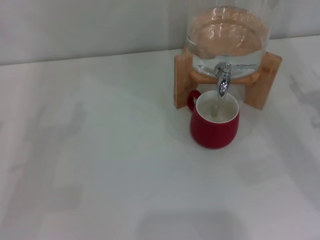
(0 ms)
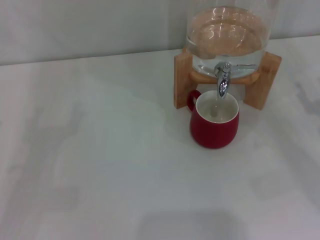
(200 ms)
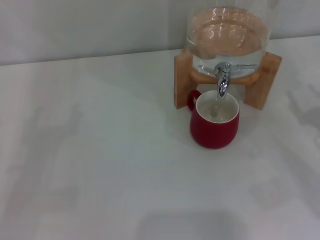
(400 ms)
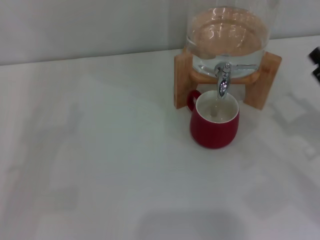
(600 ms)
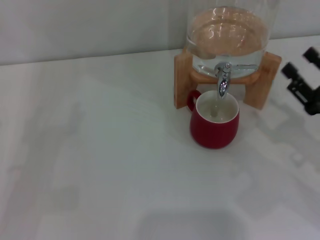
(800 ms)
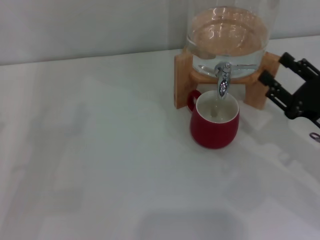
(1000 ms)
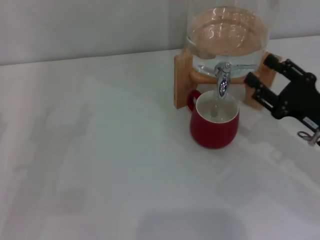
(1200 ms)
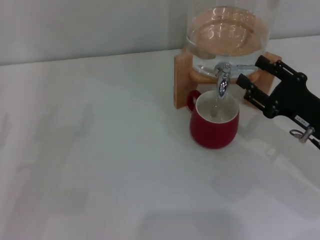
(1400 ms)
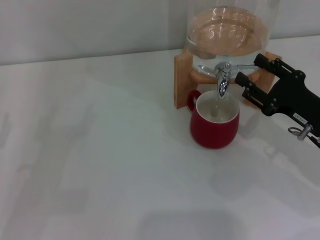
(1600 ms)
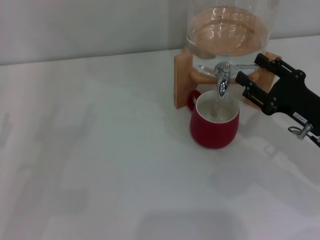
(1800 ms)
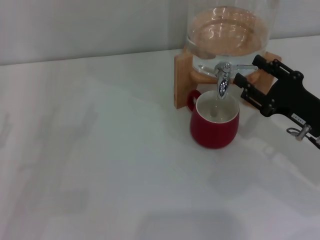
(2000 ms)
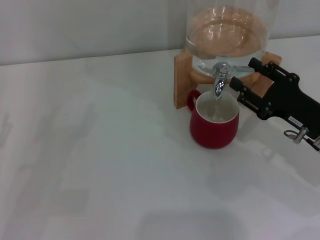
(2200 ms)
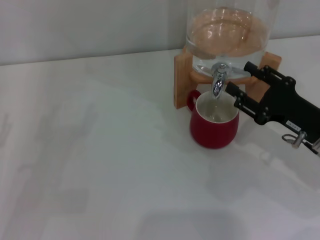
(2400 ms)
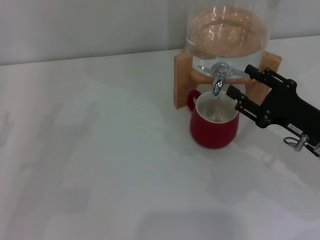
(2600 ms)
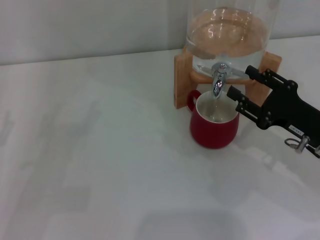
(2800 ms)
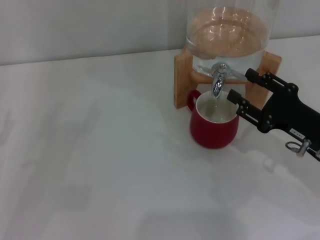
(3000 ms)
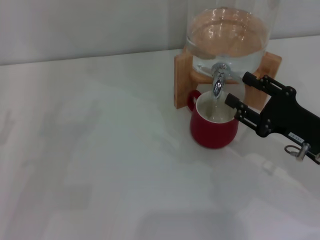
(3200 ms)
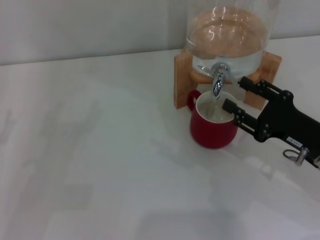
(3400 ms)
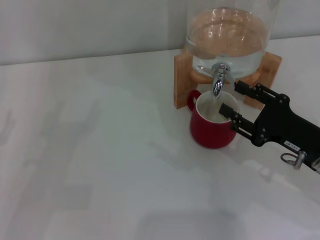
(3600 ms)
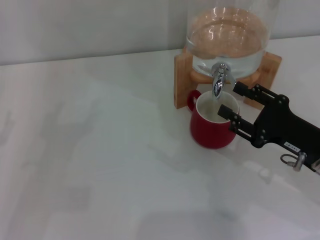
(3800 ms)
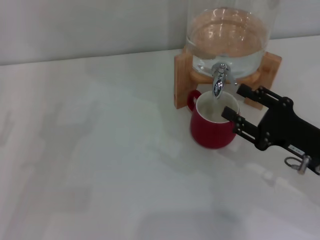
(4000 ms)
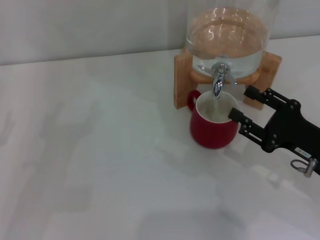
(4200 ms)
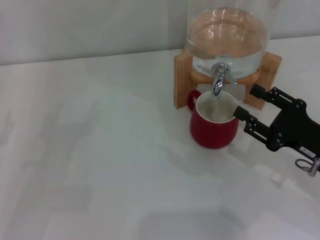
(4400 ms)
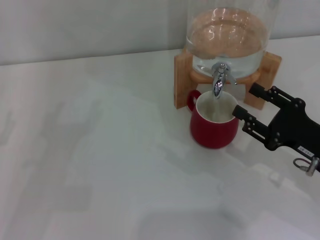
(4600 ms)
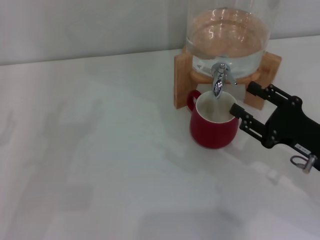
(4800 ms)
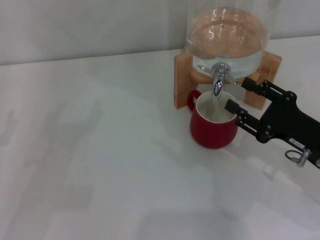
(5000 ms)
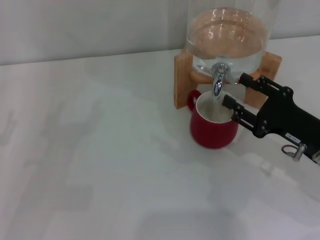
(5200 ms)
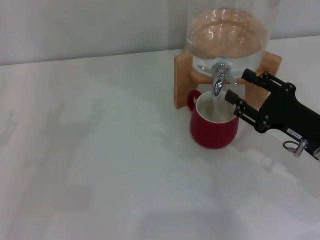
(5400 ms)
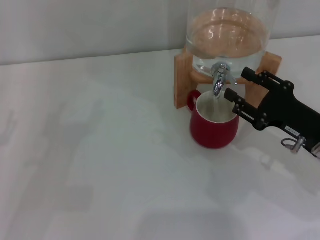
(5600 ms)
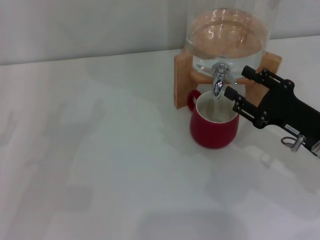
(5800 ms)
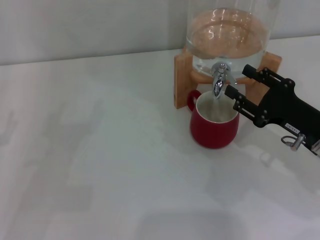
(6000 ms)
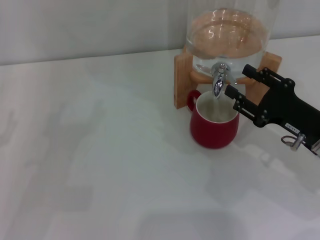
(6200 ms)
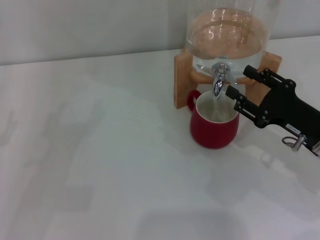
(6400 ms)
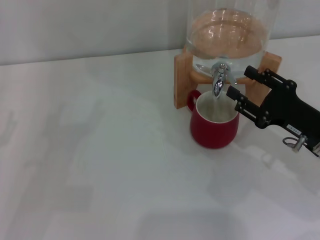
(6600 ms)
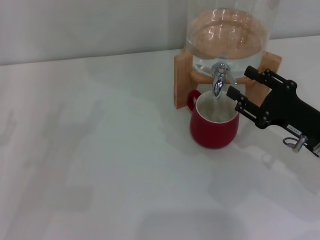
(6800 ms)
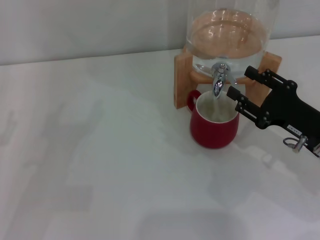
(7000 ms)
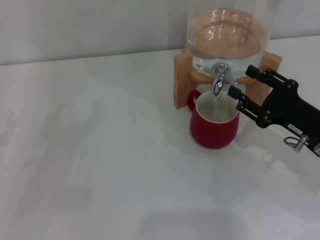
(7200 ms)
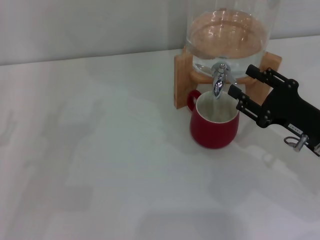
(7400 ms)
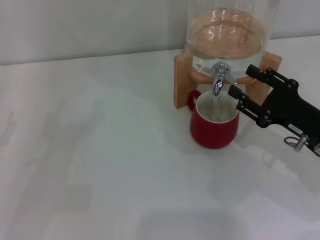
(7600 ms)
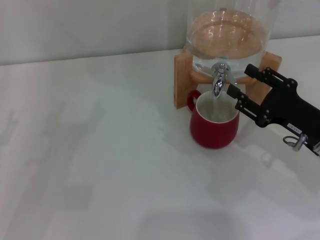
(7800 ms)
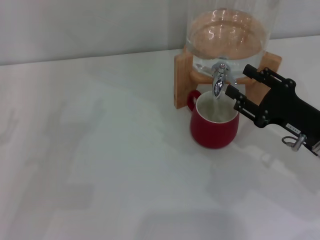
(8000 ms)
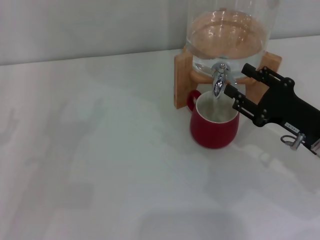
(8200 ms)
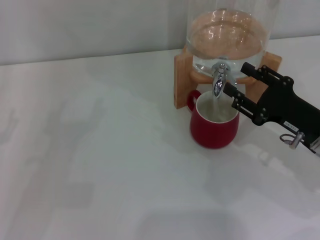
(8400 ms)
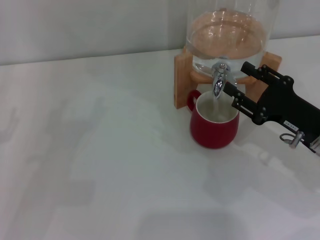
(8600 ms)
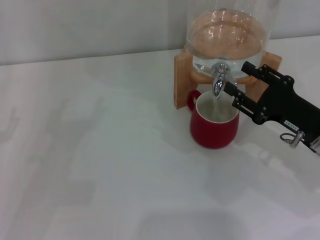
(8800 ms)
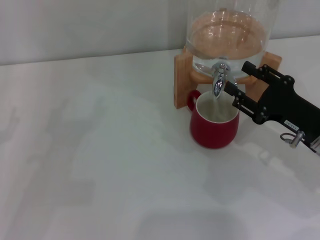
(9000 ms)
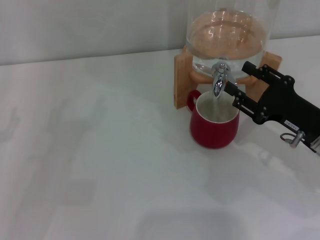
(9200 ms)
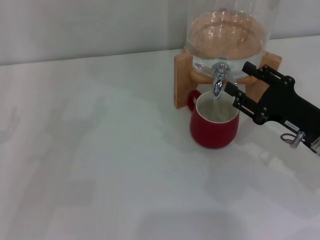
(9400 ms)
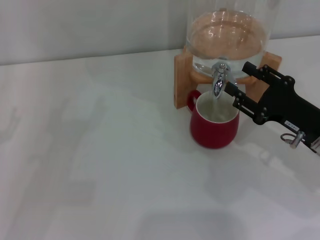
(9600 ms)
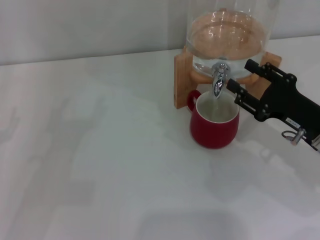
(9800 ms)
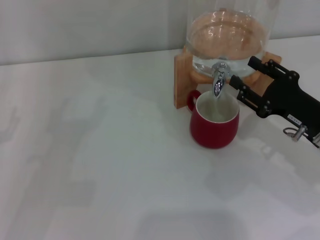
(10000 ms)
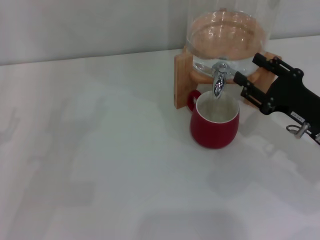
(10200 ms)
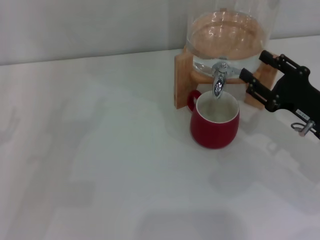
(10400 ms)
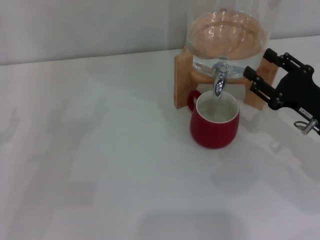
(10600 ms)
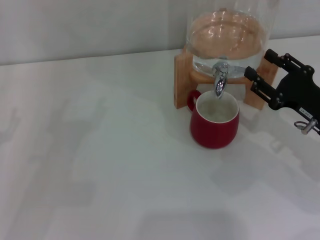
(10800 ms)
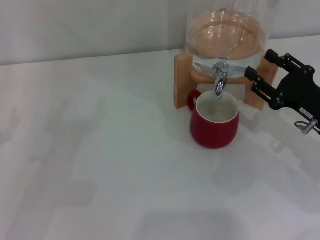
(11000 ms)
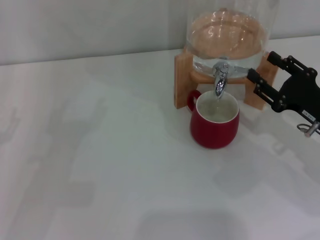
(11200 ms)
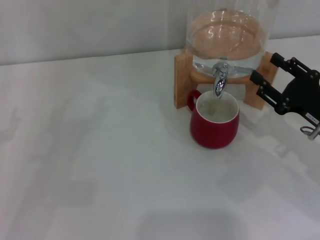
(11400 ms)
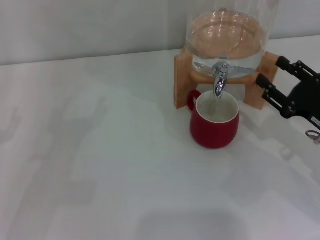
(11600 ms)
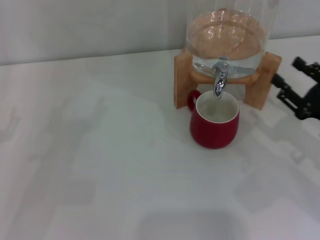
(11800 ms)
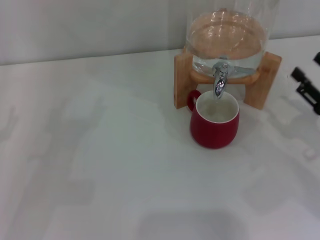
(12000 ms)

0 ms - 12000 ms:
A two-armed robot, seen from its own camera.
Task of the whole recording: the left gripper pick up the red cup and place it horizontally under the faucet, the right gripper turn on the faucet to fill the cup, and then turn off the faucet.
Step, 0 ms - 5200 ms: Open the dispenser valve and fill the cup with water with the right gripper.
Step, 5400 ms - 11400 ms: Close the dispenser valve with the right gripper.
0 ms - 1600 ms: The right gripper heads to the left, covering approximately 5 cm.
1600 ms - 6000 ms: There are only small adjustments of the grippers.
6000 ms - 9000 ms: Both grippers stay put.
9000 ms - 10400 ms: The grippers make only small movements.
10400 ms - 12000 ms: The right gripper shifts by roughly 5 cm.

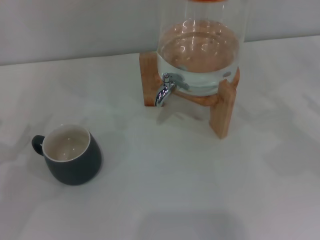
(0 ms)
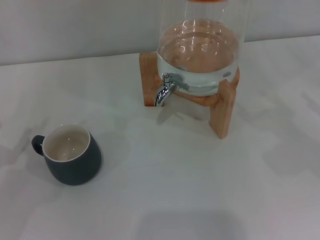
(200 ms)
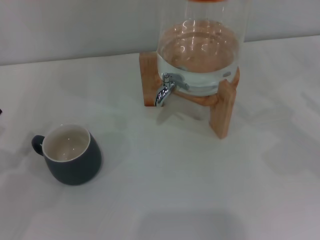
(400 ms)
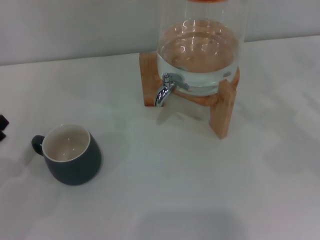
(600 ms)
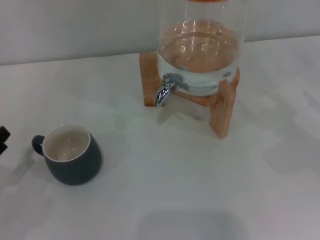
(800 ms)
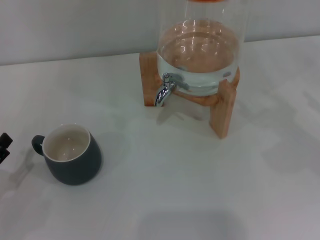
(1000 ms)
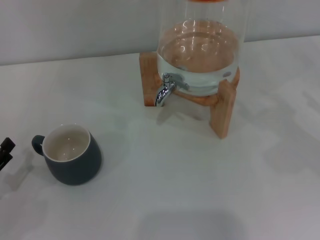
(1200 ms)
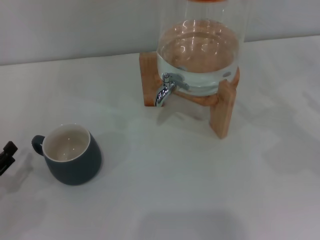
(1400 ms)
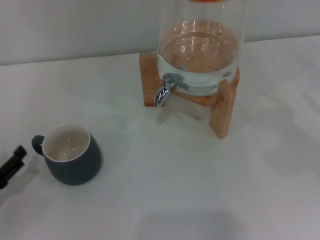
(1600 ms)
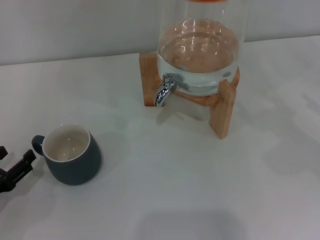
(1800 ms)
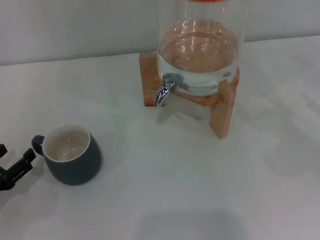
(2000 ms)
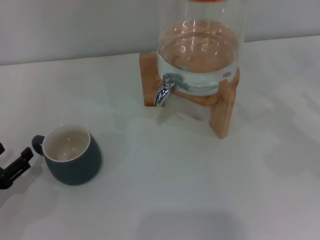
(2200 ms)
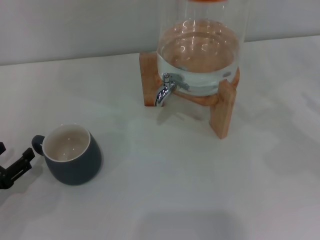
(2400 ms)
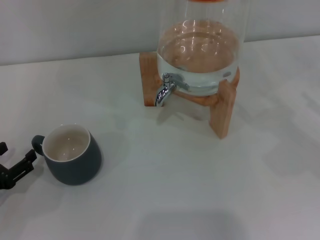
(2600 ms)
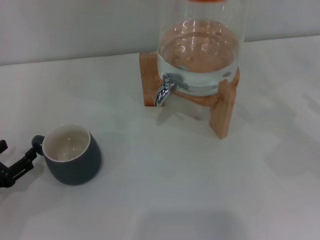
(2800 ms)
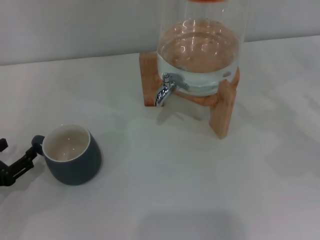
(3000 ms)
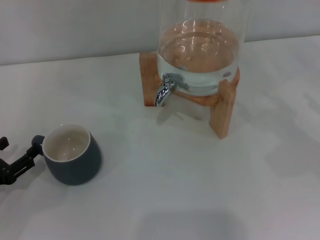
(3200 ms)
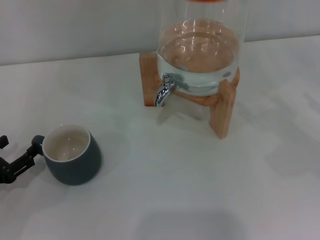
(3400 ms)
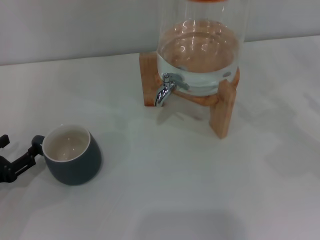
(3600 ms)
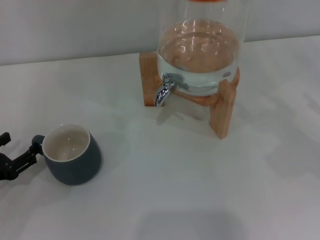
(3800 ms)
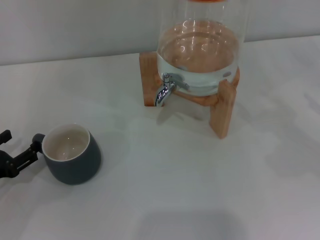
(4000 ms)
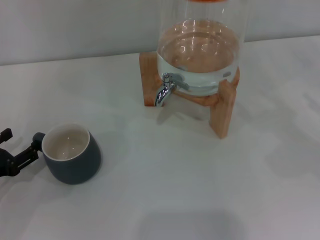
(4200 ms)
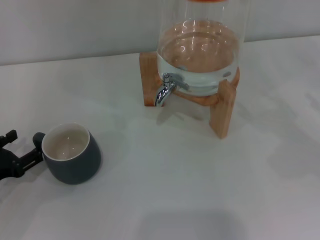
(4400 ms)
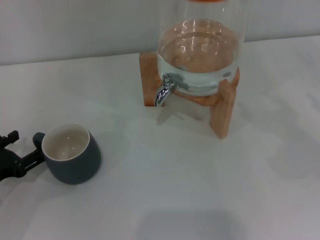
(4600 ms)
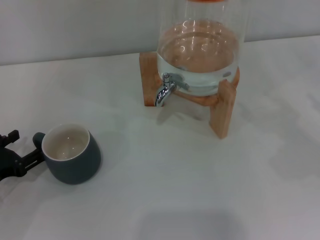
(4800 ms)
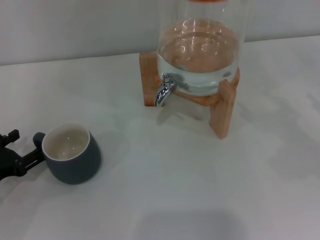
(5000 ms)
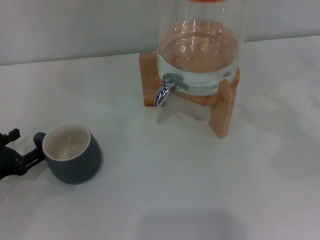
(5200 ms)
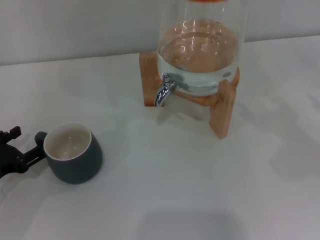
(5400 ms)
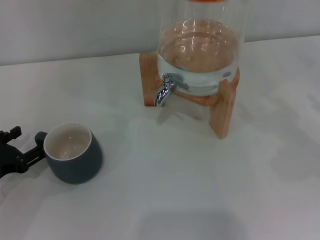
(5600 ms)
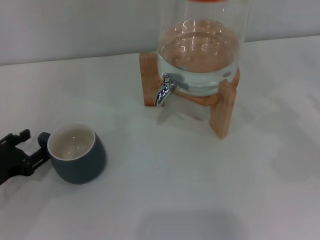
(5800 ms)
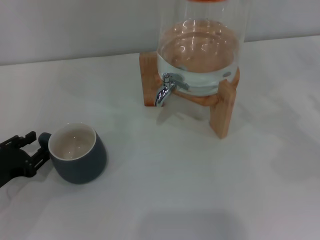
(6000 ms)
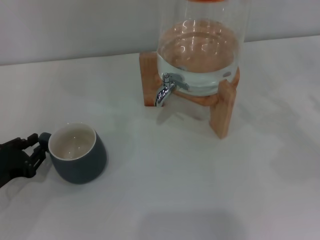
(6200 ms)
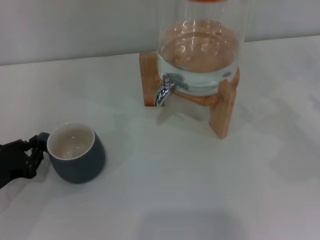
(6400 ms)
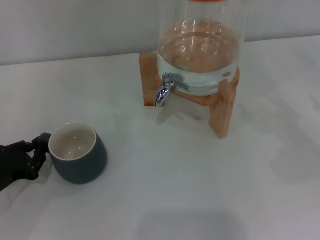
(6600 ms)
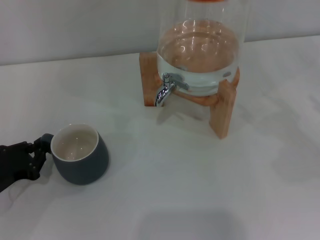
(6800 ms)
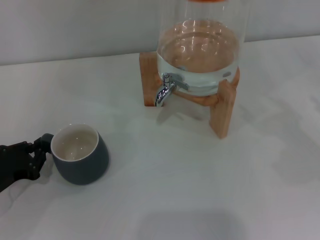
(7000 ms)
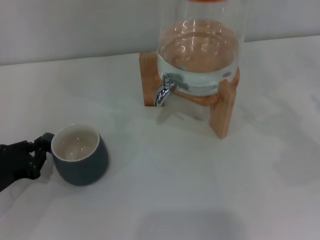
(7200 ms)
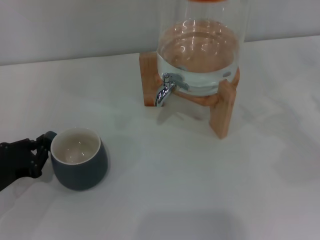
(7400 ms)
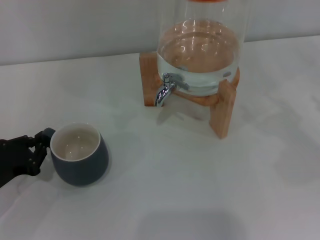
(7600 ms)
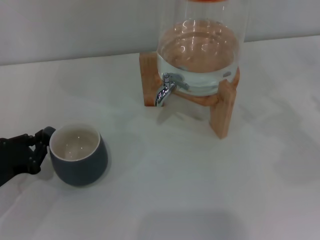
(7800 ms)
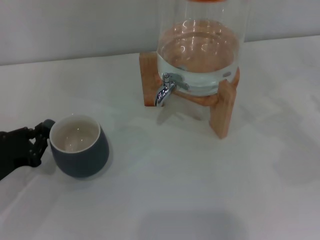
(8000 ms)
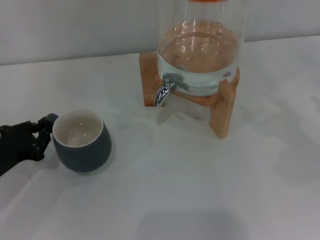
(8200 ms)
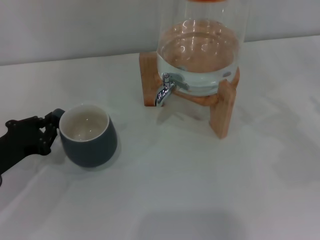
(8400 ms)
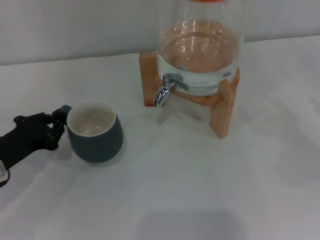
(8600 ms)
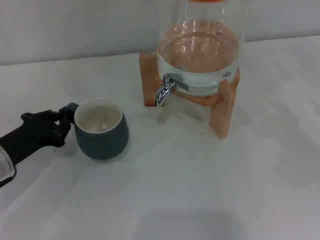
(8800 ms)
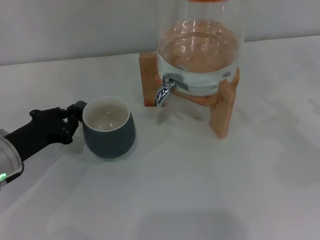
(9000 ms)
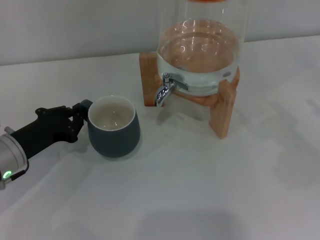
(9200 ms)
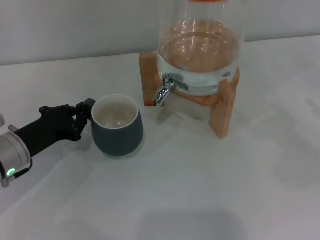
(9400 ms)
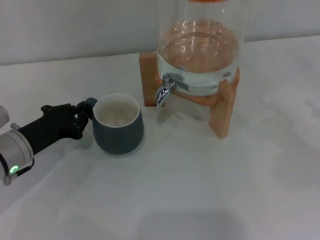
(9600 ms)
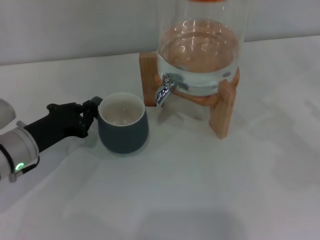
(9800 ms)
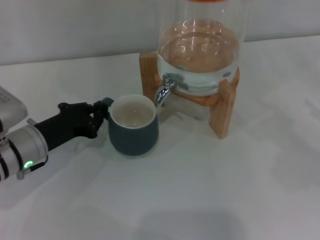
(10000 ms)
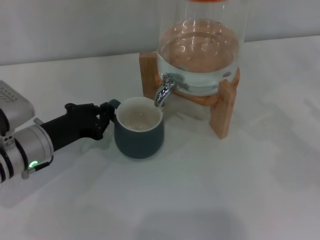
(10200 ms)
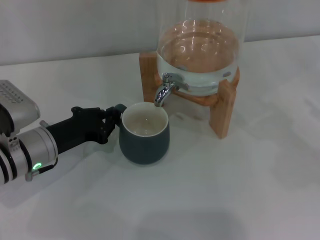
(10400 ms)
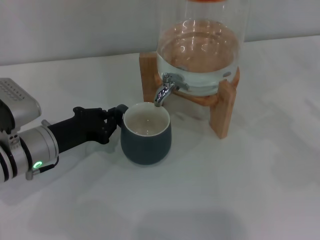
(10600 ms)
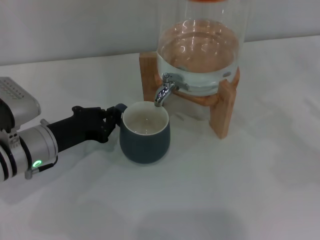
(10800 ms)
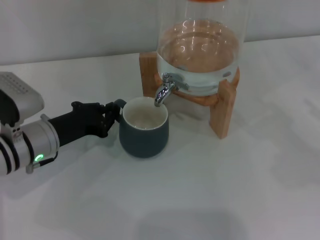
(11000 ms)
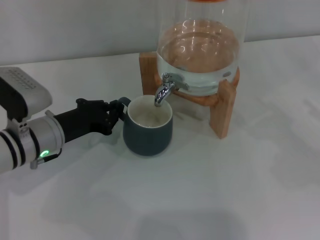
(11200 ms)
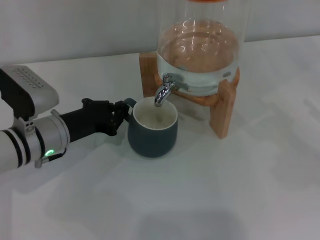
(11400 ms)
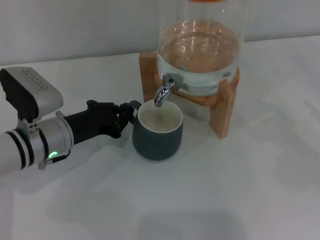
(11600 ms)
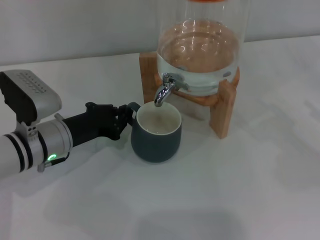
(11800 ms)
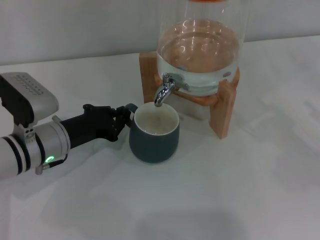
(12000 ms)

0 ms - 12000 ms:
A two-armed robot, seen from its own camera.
Task of the whole recording: the left gripper pick up the black cup and place it horizontally under the faucet, the right gripper turn on the faucet to fill the cup, and then turn off the faucet.
0 ms - 1600 ms: The left gripper shifts roughly 5 cm downward.
1600 ms - 4400 ms: There are only small adjustments of the grippers.
4400 ms - 6000 ms: The grippers make only small movements.
6000 ms - 7600 ms: The left gripper closes up.
7600 ms - 9000 ms: The left gripper is displaced to the right by approximately 5 cm.
9000 ms - 10400 ms: The left gripper goes about 5 cm to the right.
10400 ms - 12000 ms: The grippers stay close to where they were, moving slightly.
